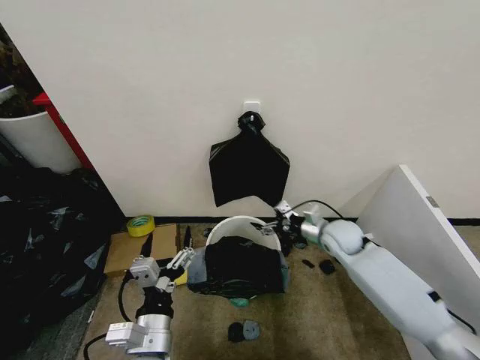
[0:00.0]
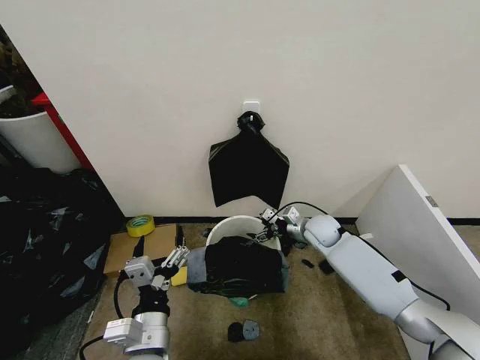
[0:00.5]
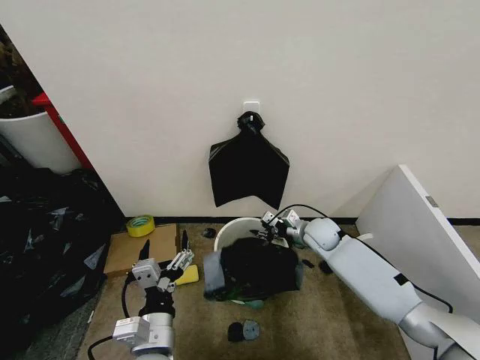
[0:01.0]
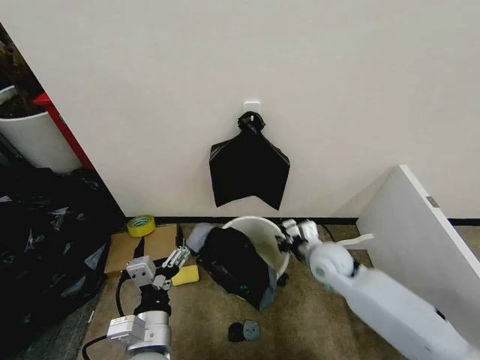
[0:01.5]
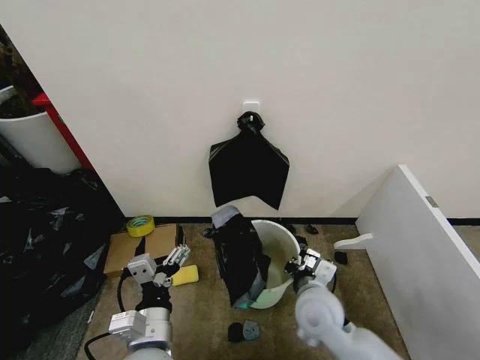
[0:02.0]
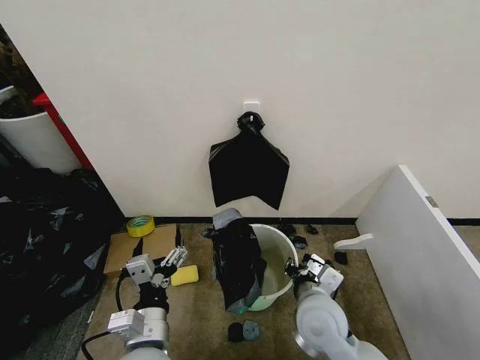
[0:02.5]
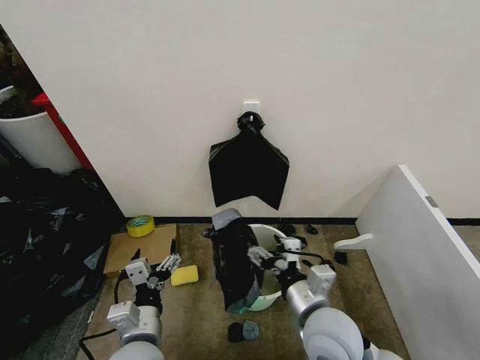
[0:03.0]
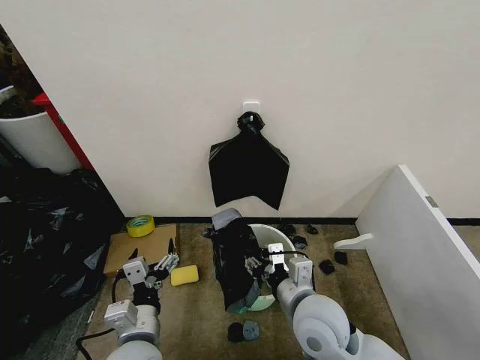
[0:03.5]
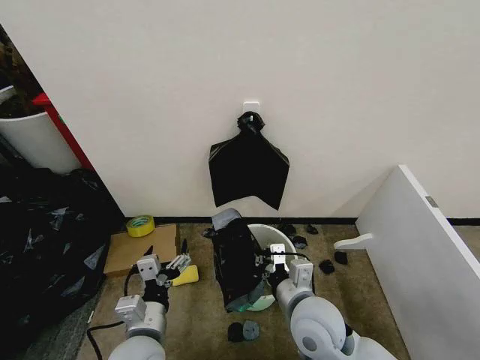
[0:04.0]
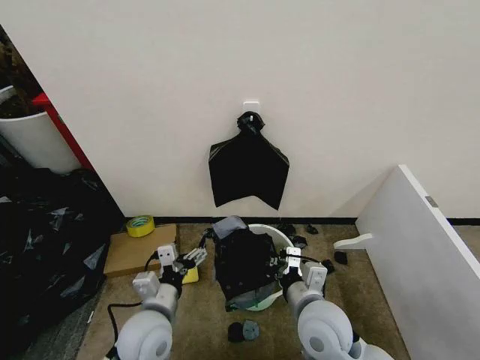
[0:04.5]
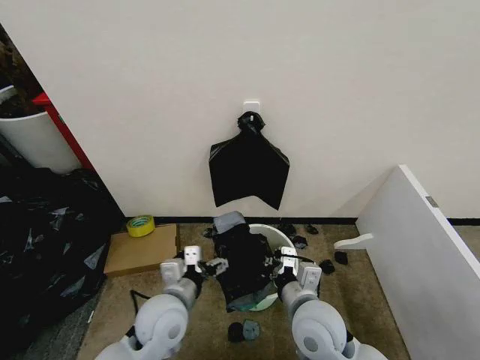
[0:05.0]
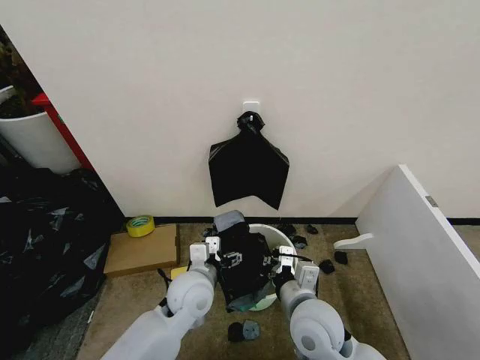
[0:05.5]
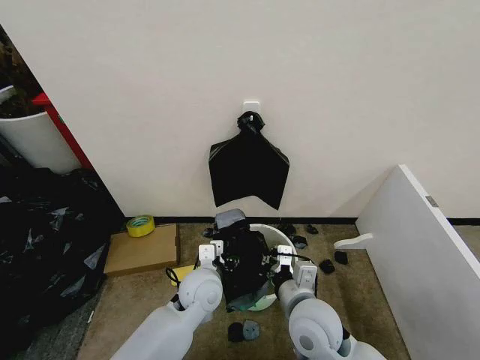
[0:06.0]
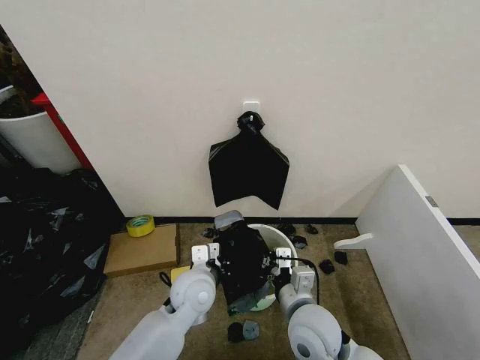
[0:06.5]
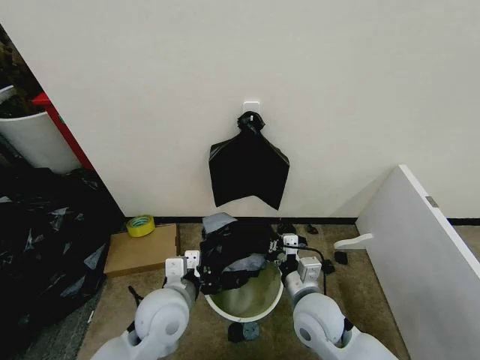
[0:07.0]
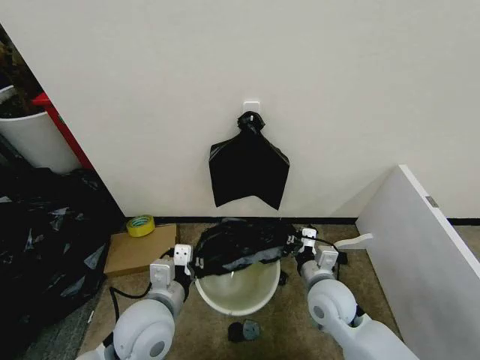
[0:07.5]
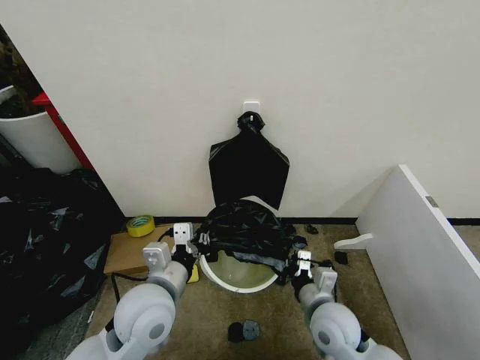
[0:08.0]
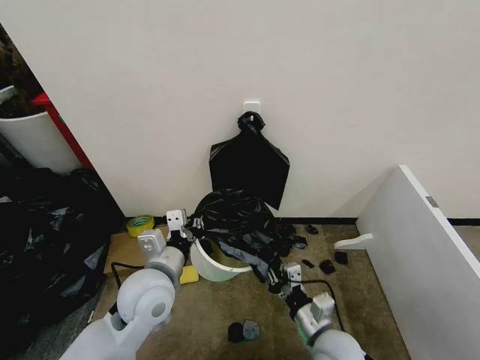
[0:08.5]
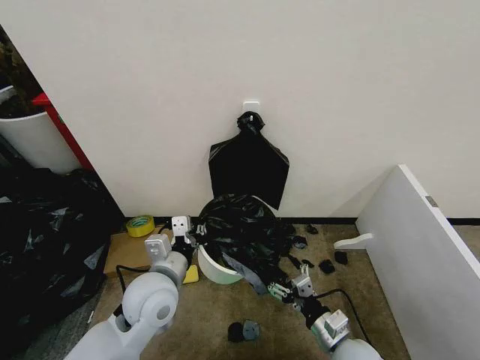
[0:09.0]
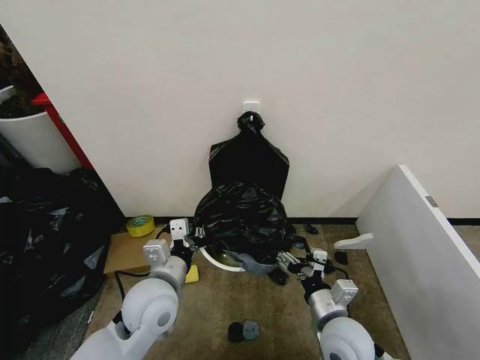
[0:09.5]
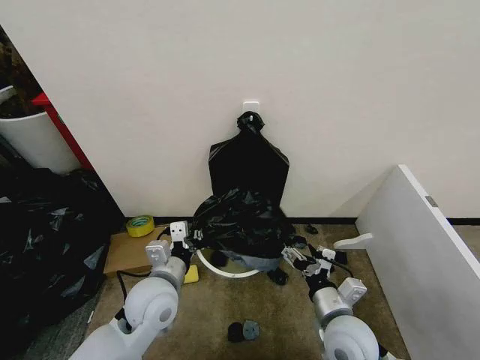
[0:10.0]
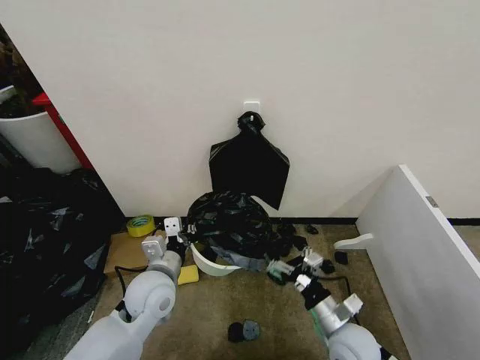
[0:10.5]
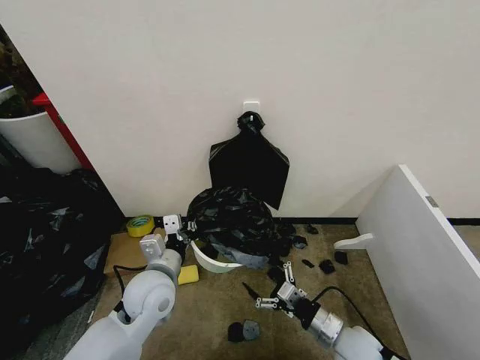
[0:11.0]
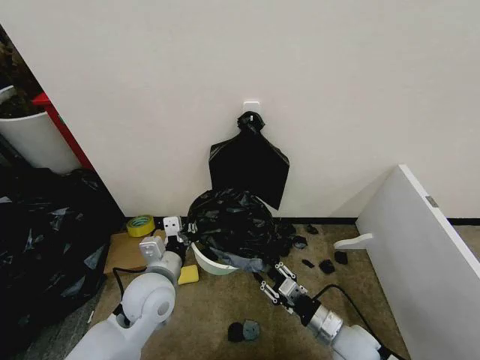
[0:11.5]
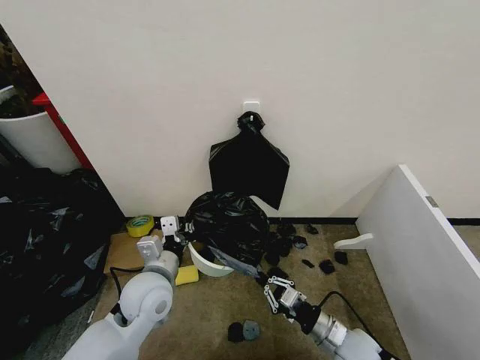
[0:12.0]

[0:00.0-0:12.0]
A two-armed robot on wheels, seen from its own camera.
Task of the whole recording: Place the garbage bag over the trash bin.
0:00.0 to 0:02.0: The right gripper moves backward and to the left, approximately 20 cm, and closes.
0:02.0 to 0:04.0: The left gripper shifts by some 5 cm. Meanwhile the right gripper shifts by about 5 cm, and opens and closes again.
0:04.0 to 0:06.0: The left gripper is displaced forward and to the right by roughly 15 cm.
0:06.0 to 0:08.0: The left gripper is displaced upward, backward and to the left by approximately 15 cm, and closes up, while the right gripper travels to the right and downward by some 10 cm.
0:08.0 to 0:10.0: The left gripper ends up about 5 cm from where it was, while the right gripper opens up.
0:10.0 to 0:12.0: The right gripper moves downward, about 10 cm, and closes its fingers.

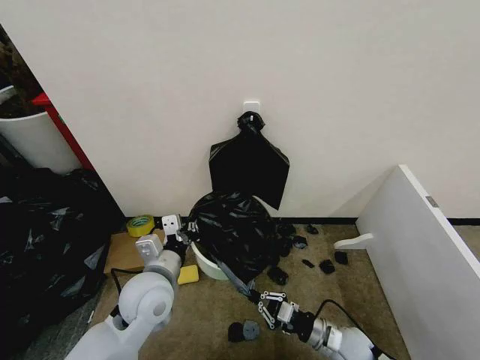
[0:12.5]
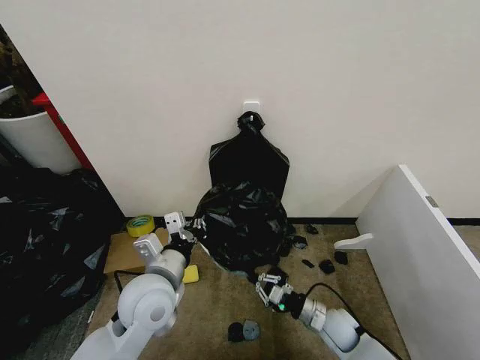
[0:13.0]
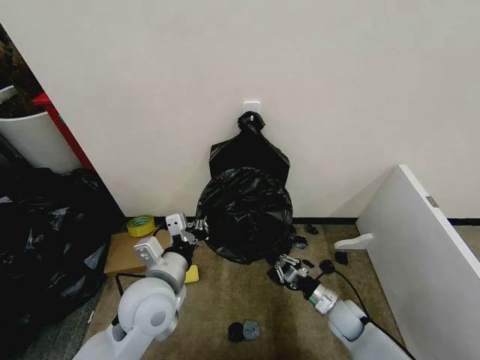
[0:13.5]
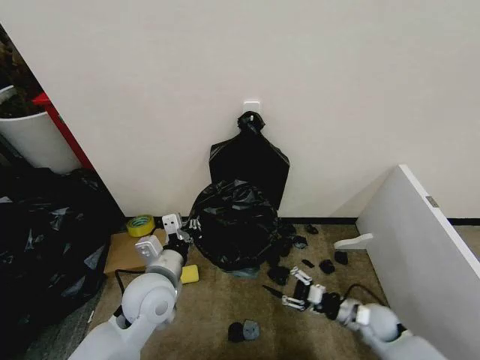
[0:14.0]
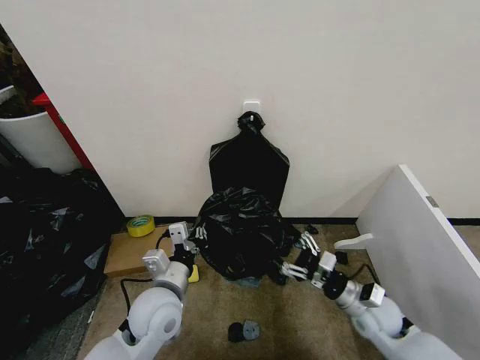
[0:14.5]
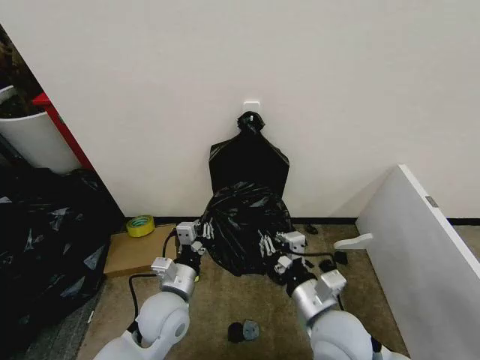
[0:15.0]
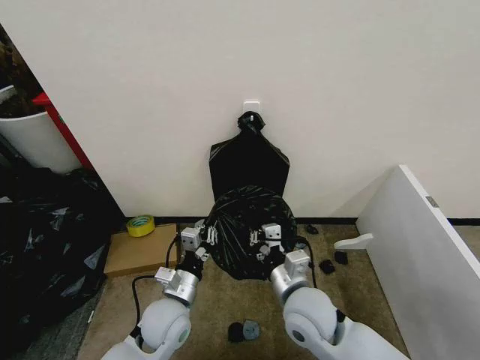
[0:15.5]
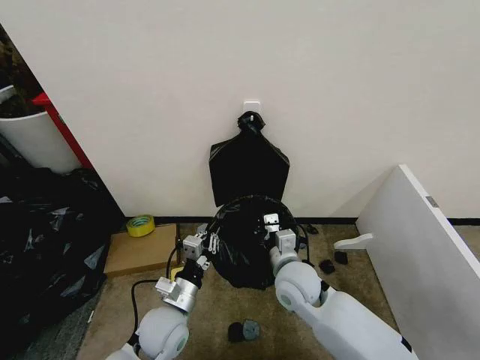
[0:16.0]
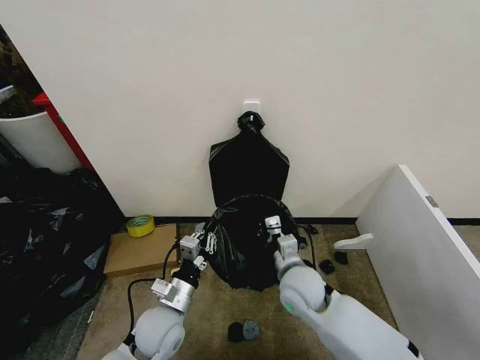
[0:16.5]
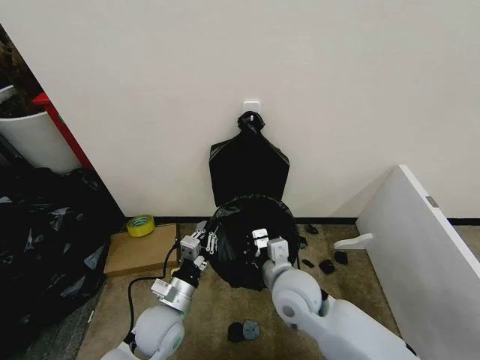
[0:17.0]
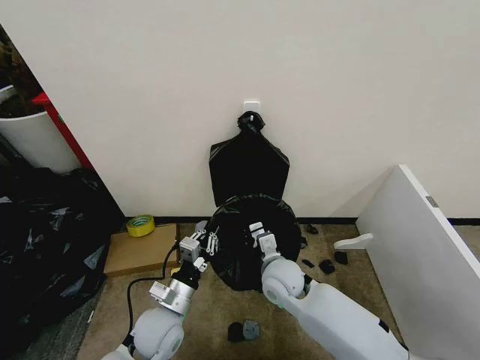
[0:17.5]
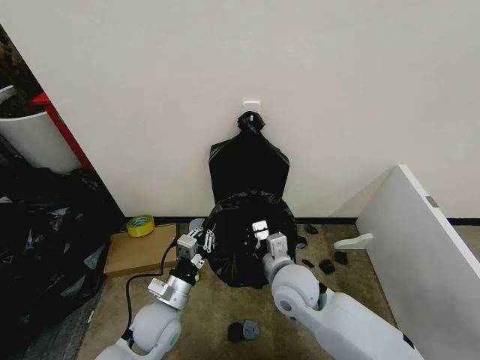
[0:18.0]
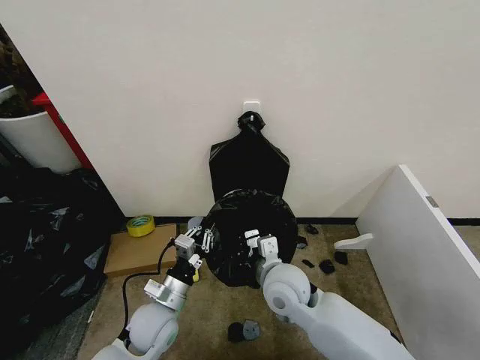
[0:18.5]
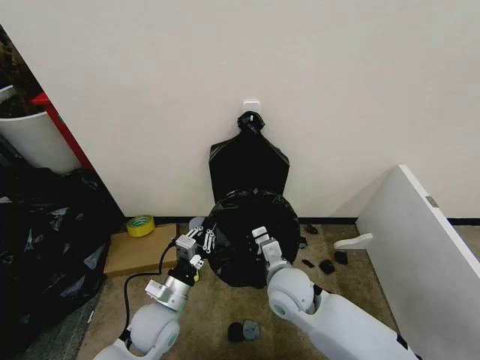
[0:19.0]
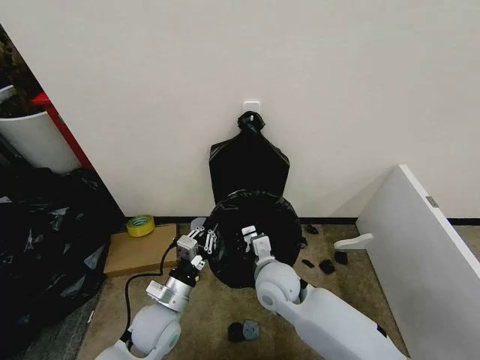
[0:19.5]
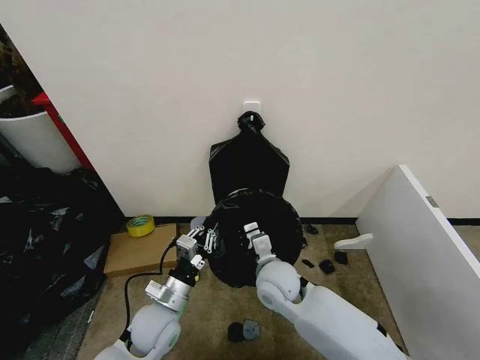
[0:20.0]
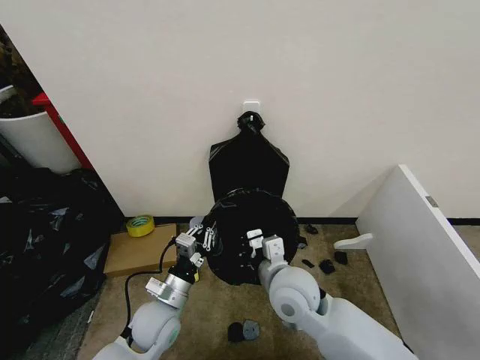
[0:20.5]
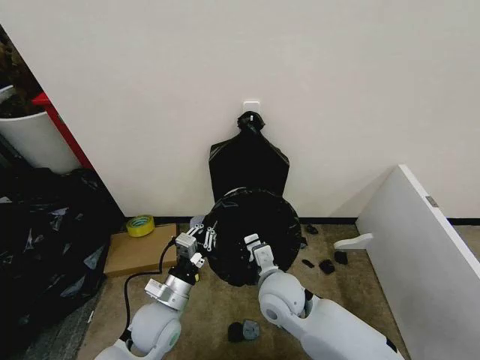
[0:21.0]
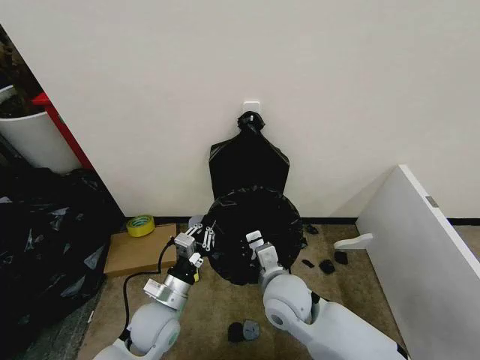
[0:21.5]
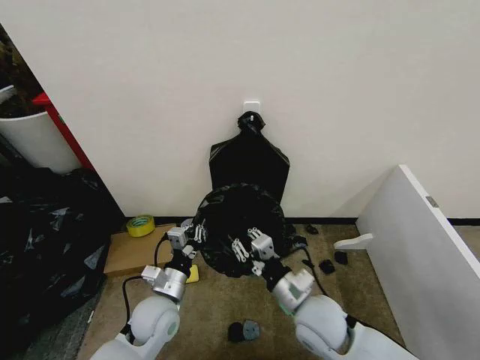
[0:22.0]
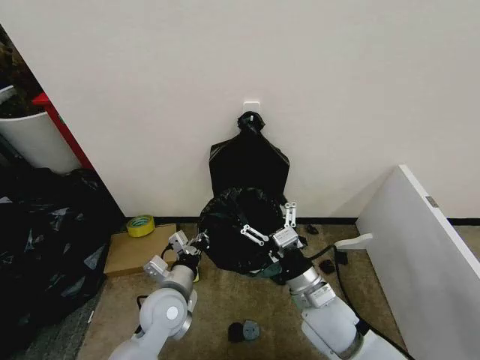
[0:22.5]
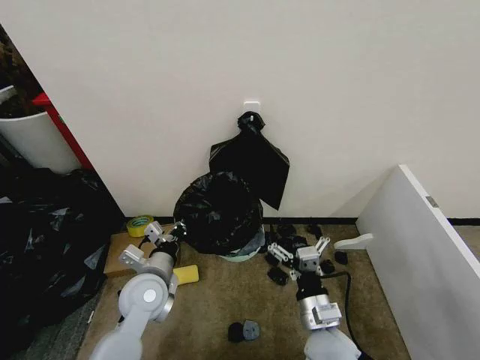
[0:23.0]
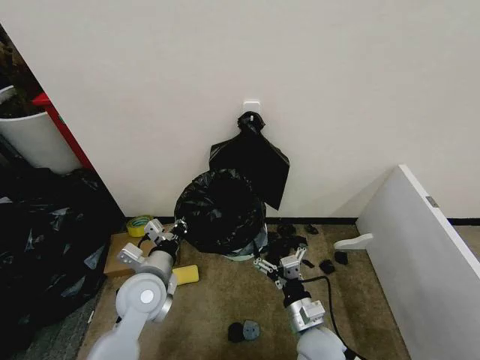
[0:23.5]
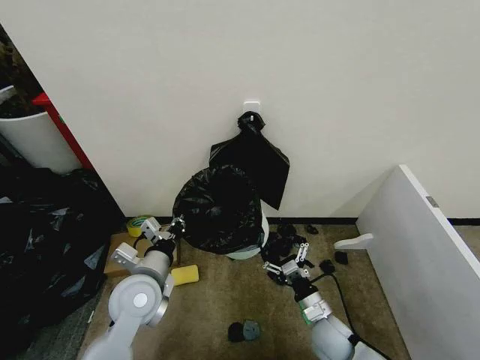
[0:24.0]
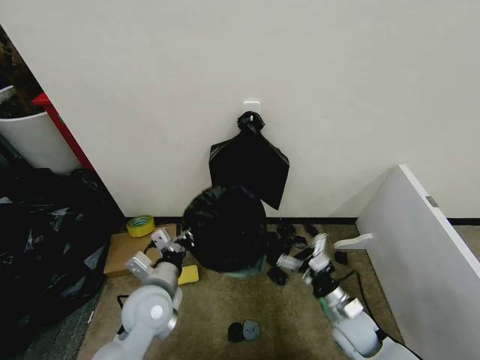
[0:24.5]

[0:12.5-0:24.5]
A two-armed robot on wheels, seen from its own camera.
Task of the whole recording: Place the garbage bag over the trash bin.
0:12.5 to 0:14.5: The right gripper is displaced upward by approximately 10 cm, and opens its fingers.
0:14.5 to 0:16.5: The left gripper moves downward, approximately 5 cm; the right gripper shifts approximately 15 cm to the left, and closes up.
0:16.5 to 0:18.5: The right gripper moves about 5 cm.
0:18.5 to 0:20.5: The grippers make only small movements.
0:20.5 to 0:22.5: The right gripper shifts roughly 5 cm to the right, and opens.
0:22.5 to 0:24.5: The right gripper moves downward and to the right, roughly 15 cm.

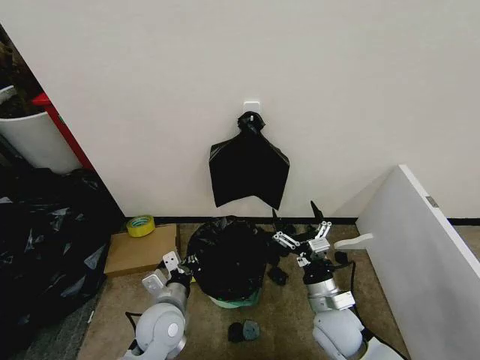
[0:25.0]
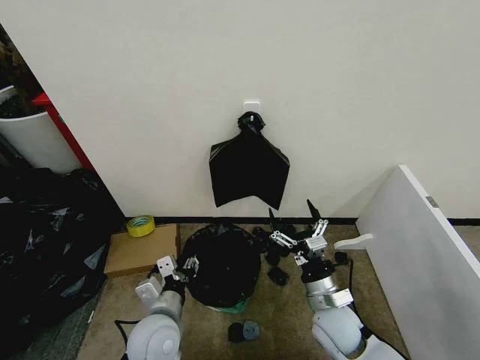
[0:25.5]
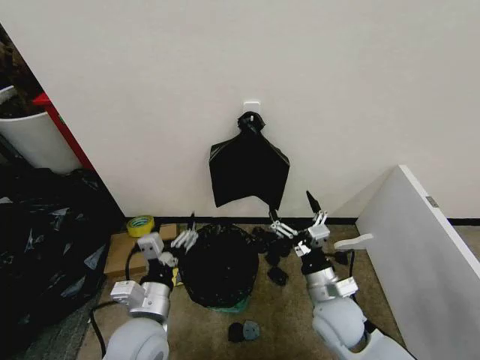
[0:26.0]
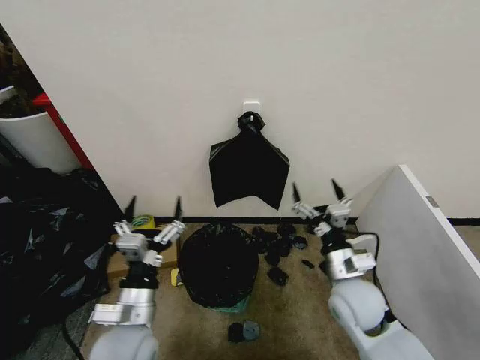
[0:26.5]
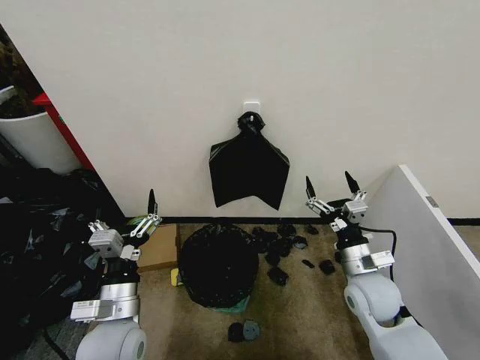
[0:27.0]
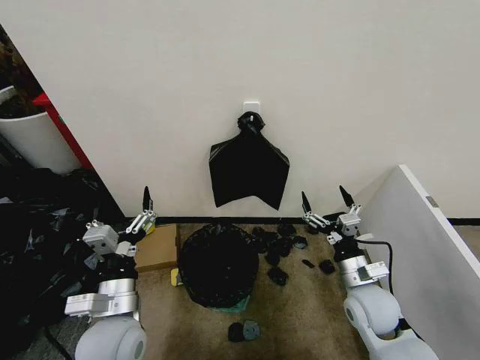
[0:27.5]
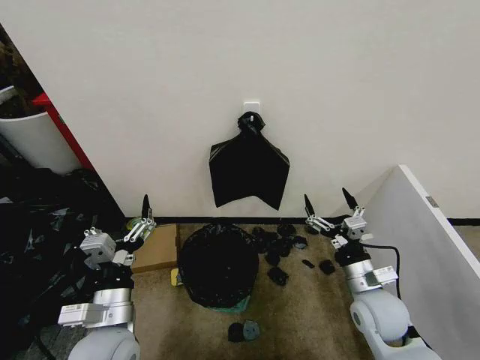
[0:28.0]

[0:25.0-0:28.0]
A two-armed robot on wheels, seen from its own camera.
Task of the whole recording: Place the garbage bag over the trash bin.
0:25.0 to 0:26.5: The left gripper shifts roughly 10 cm upward and backward, and opens. The right gripper shifts roughly 5 cm upward.
0:26.5 to 0:28.0: The right gripper moves roughly 5 cm.
